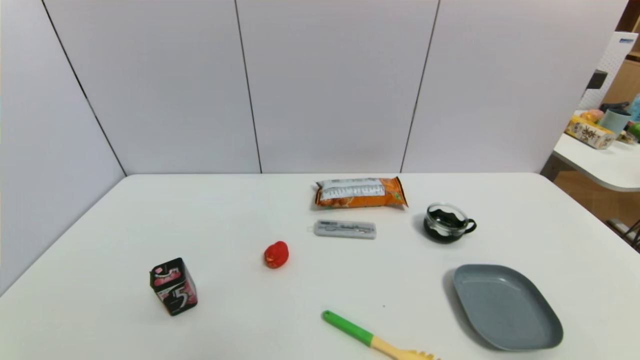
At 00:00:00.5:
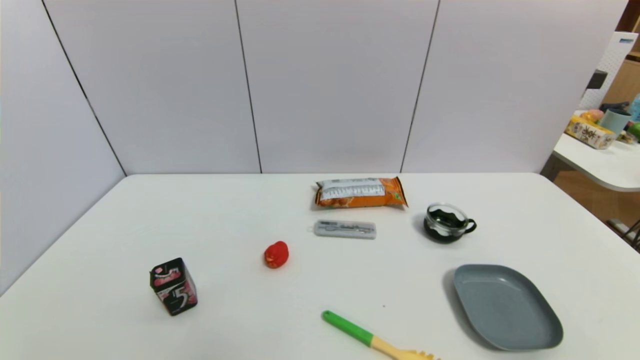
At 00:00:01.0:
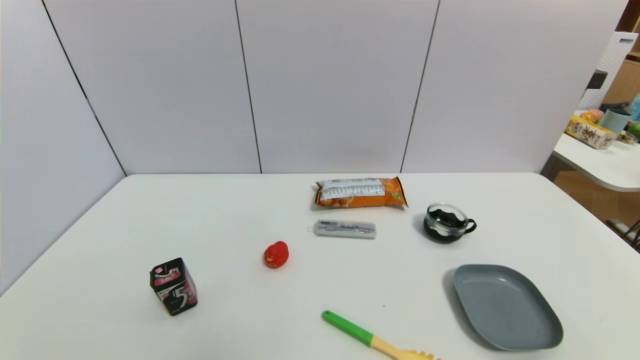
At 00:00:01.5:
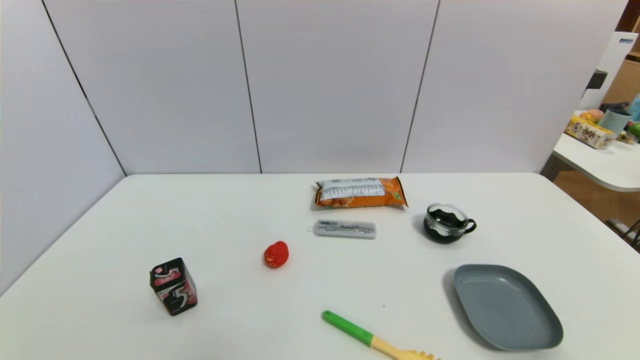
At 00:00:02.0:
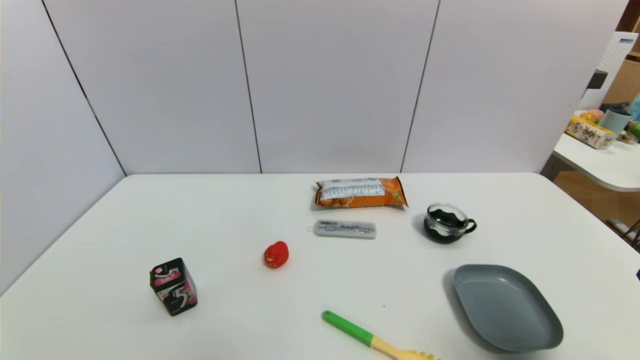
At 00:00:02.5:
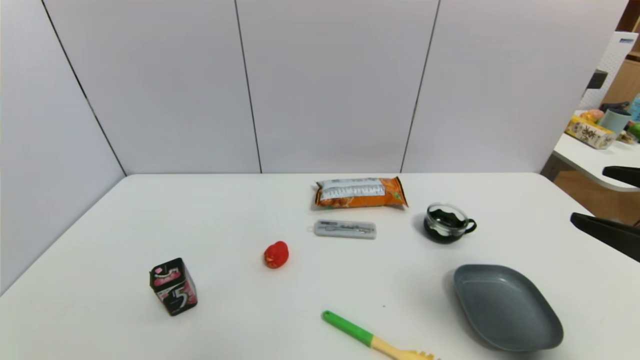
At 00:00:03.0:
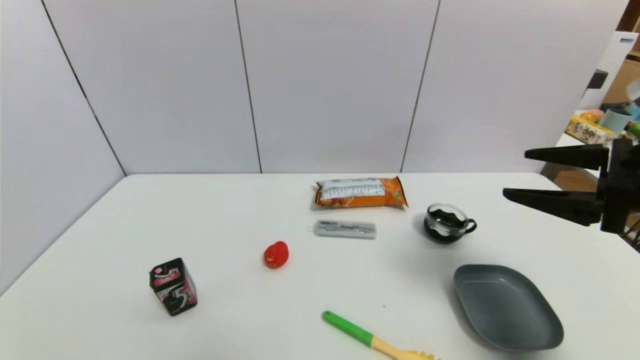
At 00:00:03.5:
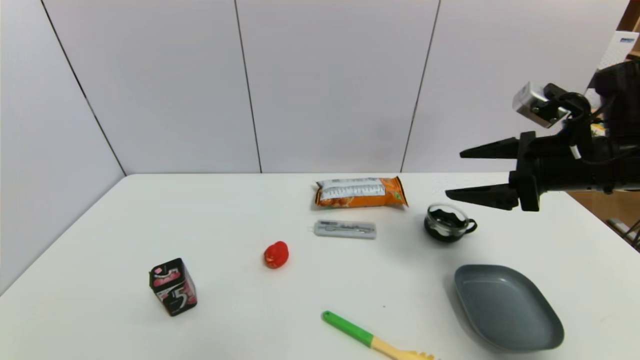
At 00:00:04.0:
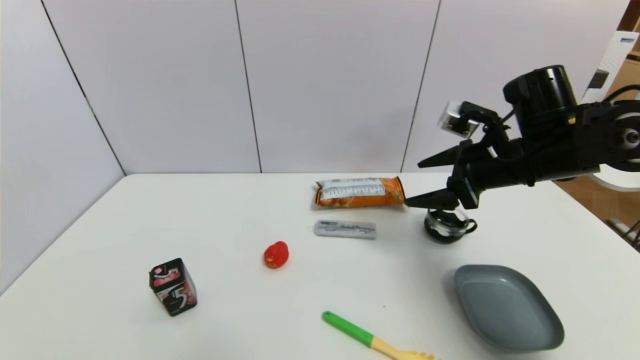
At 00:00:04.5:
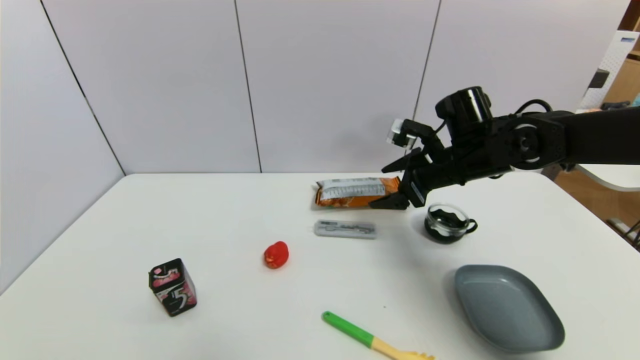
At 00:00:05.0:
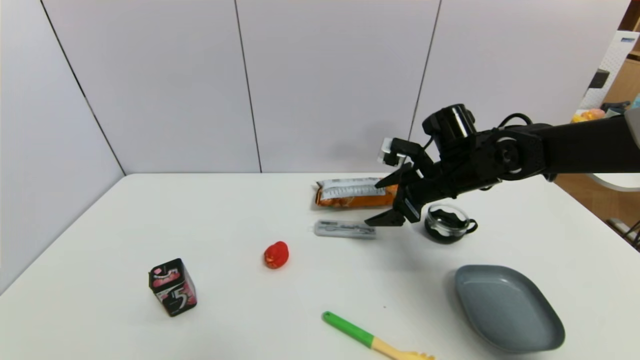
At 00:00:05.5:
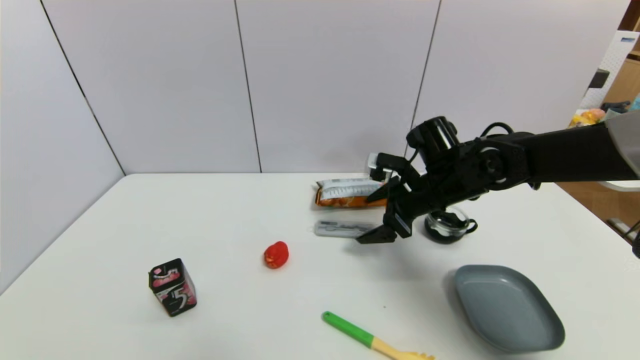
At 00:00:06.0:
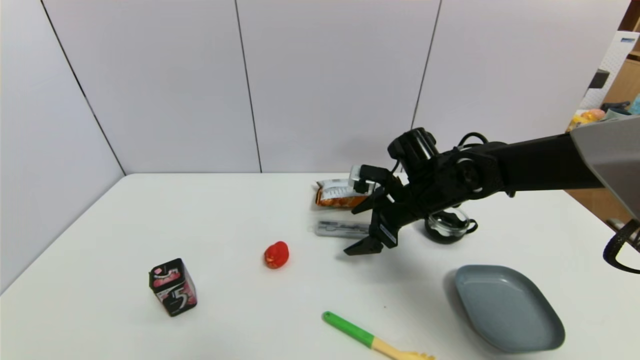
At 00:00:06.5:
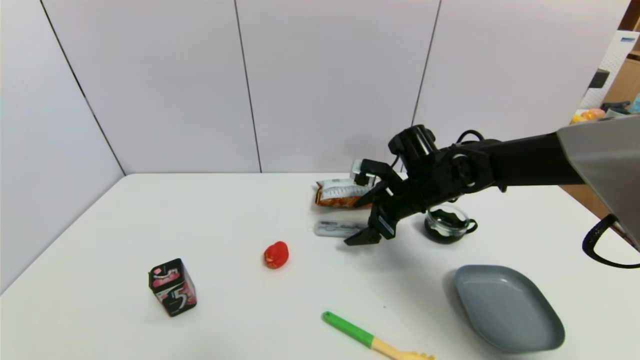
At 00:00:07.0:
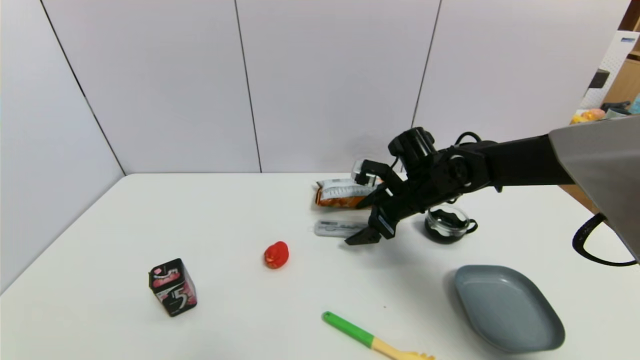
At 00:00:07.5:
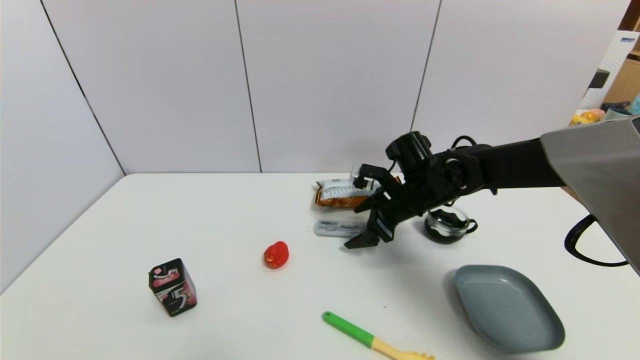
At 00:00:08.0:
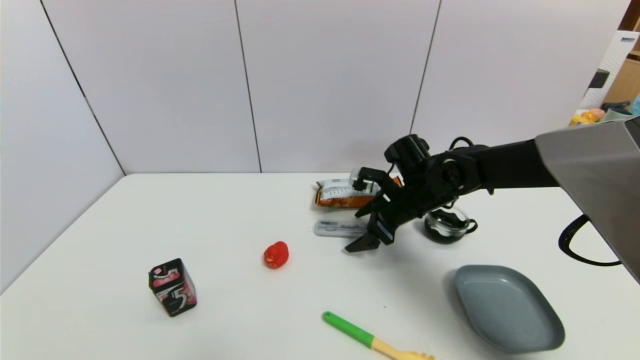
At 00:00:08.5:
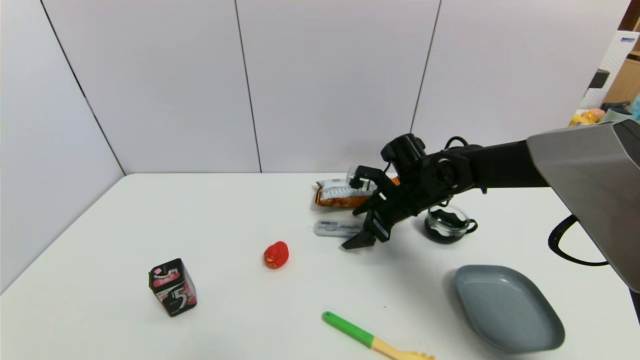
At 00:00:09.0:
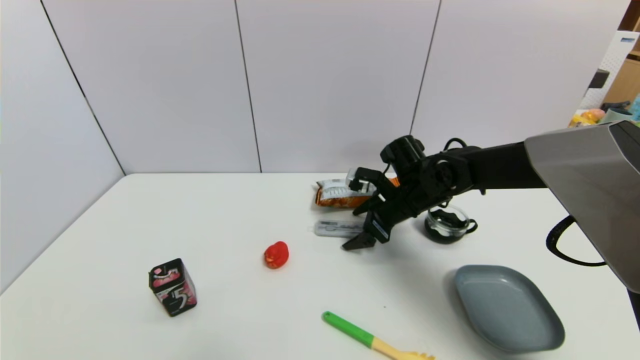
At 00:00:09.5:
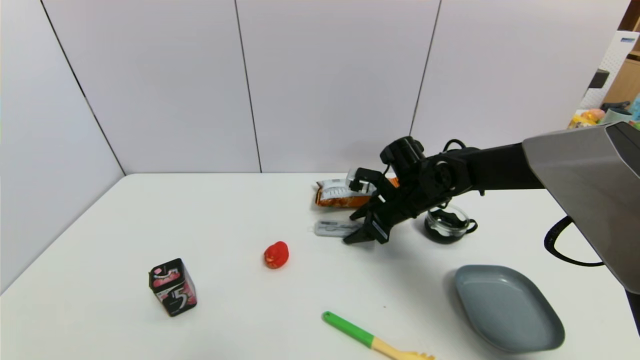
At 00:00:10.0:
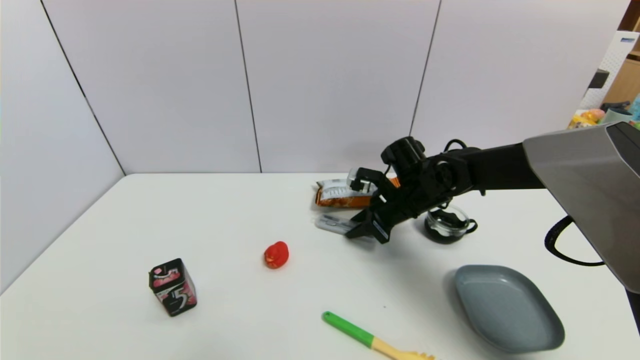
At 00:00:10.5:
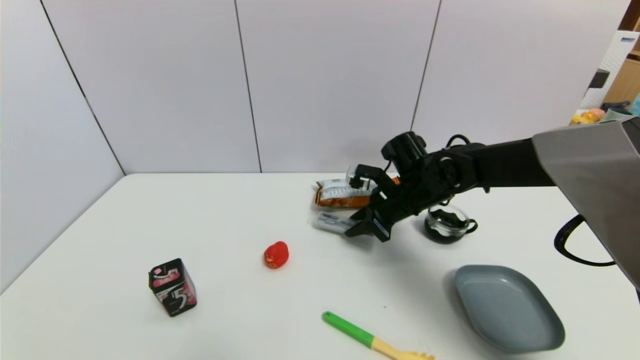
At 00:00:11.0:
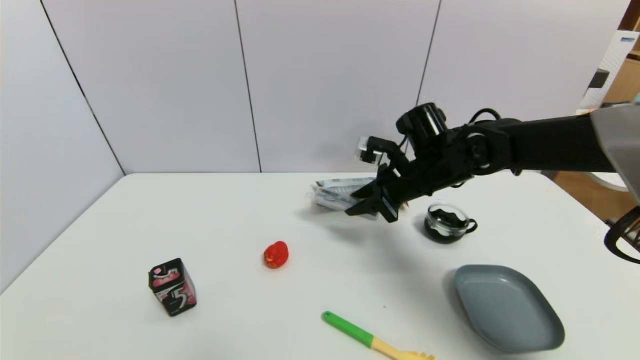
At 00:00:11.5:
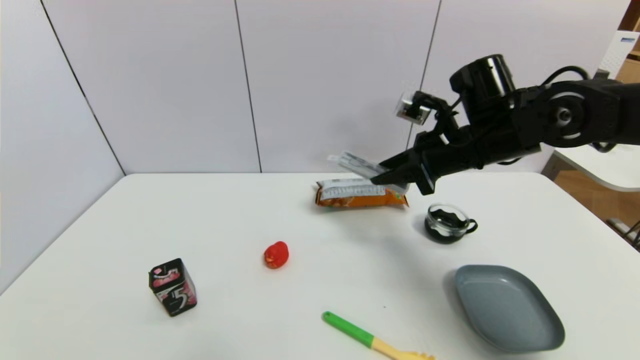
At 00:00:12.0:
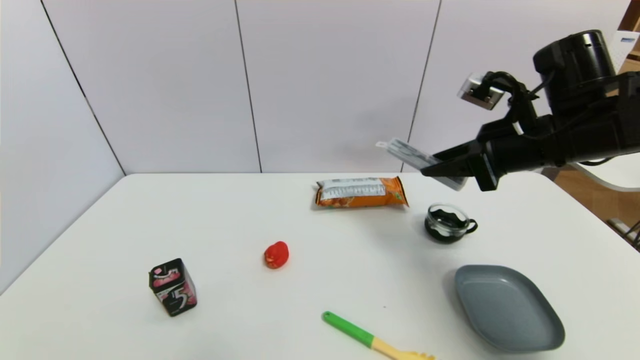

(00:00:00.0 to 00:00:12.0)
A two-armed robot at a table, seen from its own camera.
Task of the whole recording: use a gripper to pick the target object and place on the dish.
Step, 00:00:00.0 - 00:00:10.0: Grasp the compasses with the right gripper.
00:00:00.0 - 00:00:02.0: The right gripper travels upward and forward by approximately 15 cm.
00:00:02.0 - 00:00:04.0: The right gripper is displaced forward by approximately 25 cm.
00:00:04.0 - 00:00:06.0: The right gripper travels to the left and downward by roughly 15 cm.
00:00:06.0 - 00:00:08.0: The grippers stay close to where they were, moving slightly.
00:00:08.0 - 00:00:10.0: The right gripper closes up.
00:00:10.0 - 00:00:12.0: The right gripper travels upward, to the right and backward by approximately 20 cm.

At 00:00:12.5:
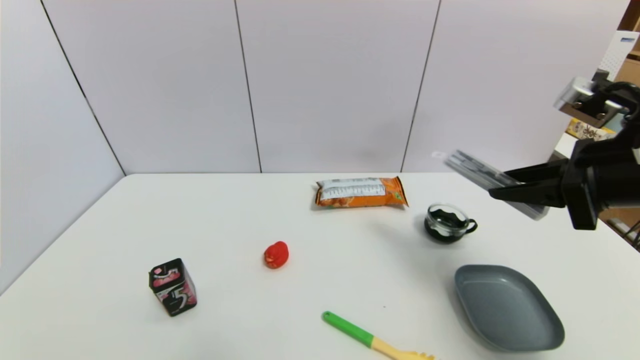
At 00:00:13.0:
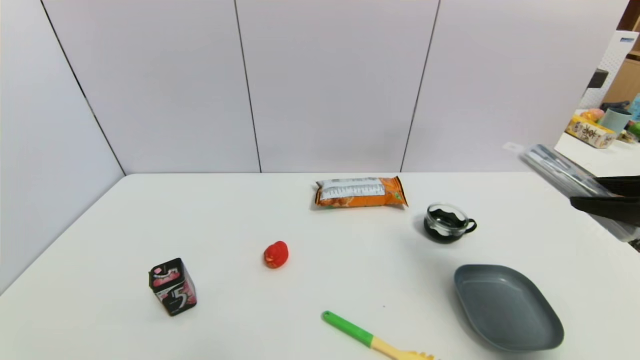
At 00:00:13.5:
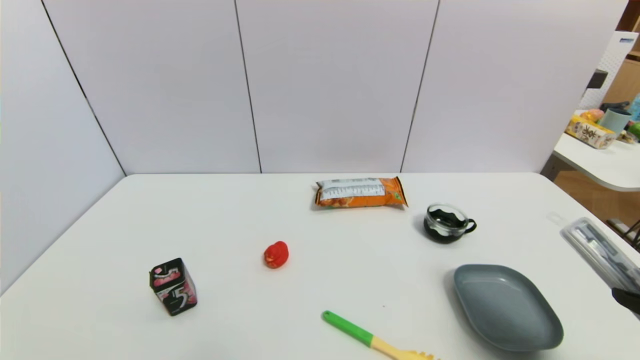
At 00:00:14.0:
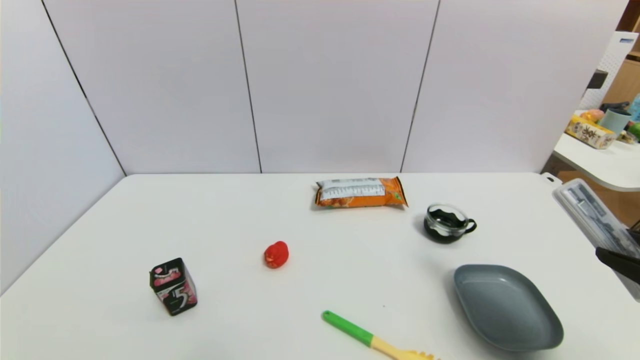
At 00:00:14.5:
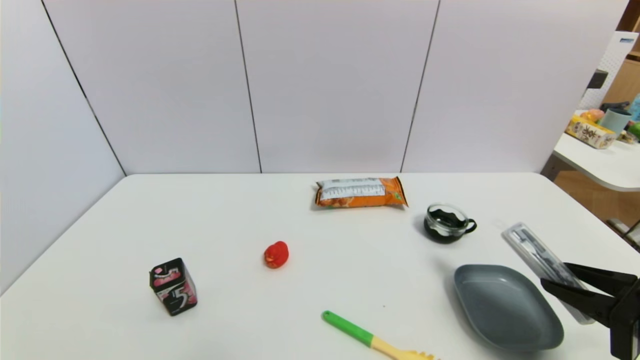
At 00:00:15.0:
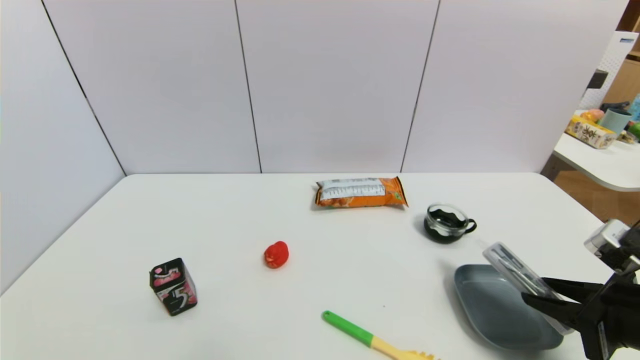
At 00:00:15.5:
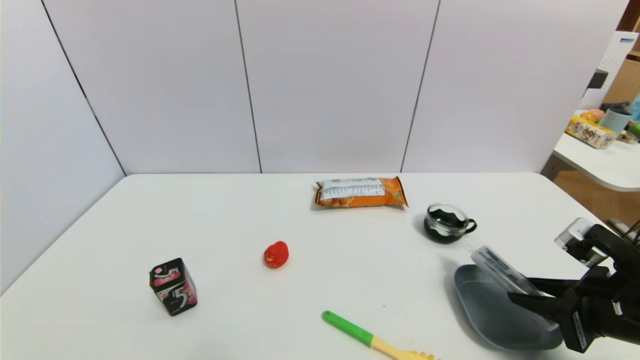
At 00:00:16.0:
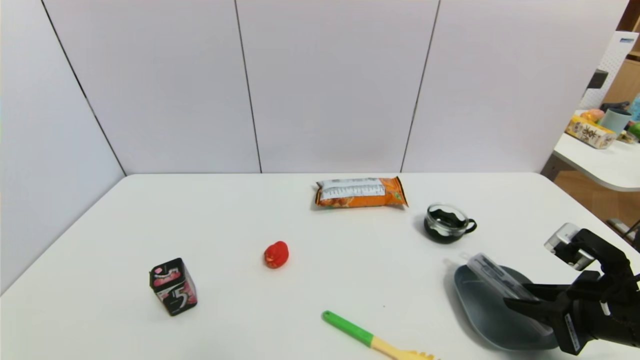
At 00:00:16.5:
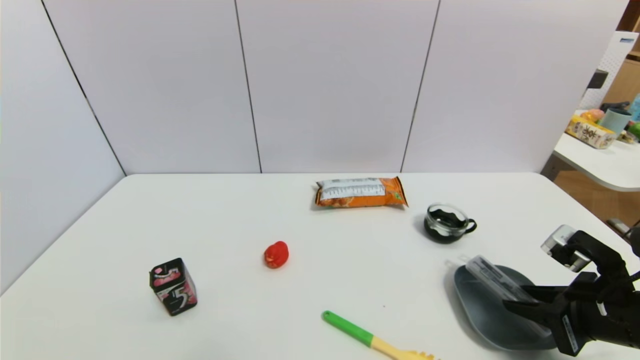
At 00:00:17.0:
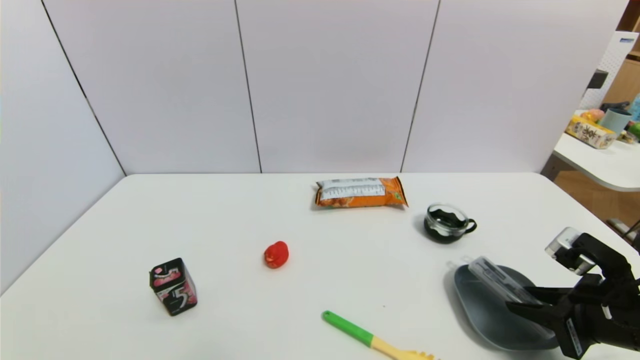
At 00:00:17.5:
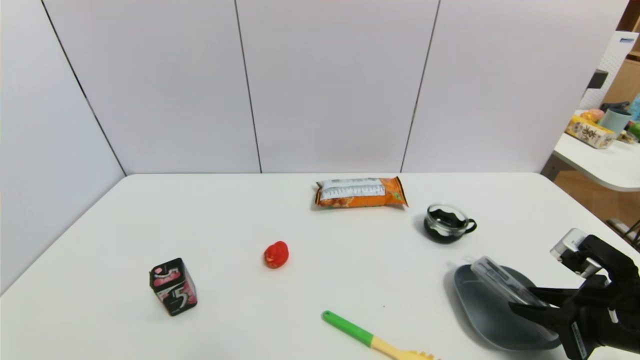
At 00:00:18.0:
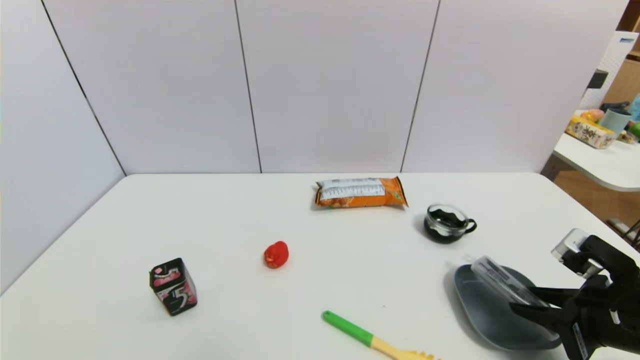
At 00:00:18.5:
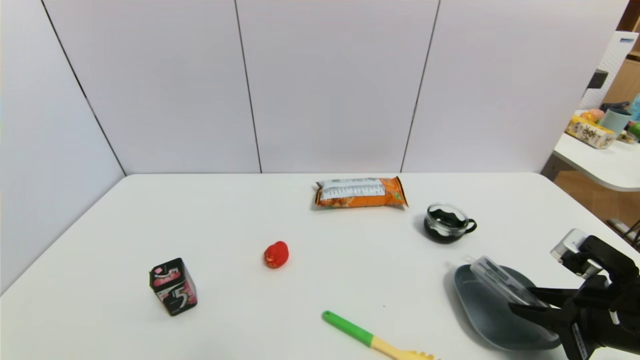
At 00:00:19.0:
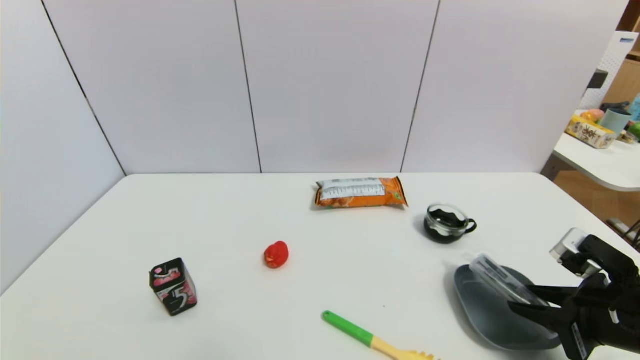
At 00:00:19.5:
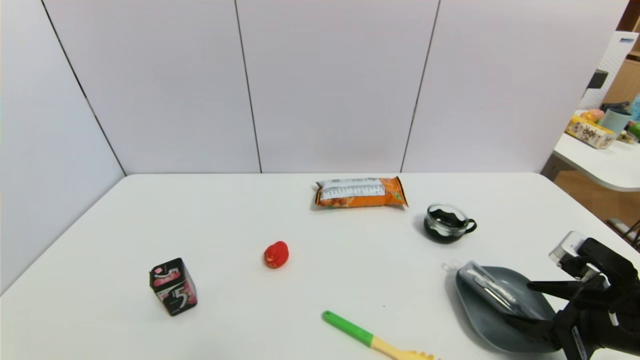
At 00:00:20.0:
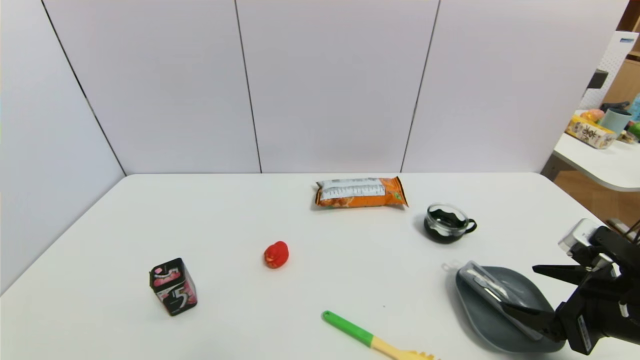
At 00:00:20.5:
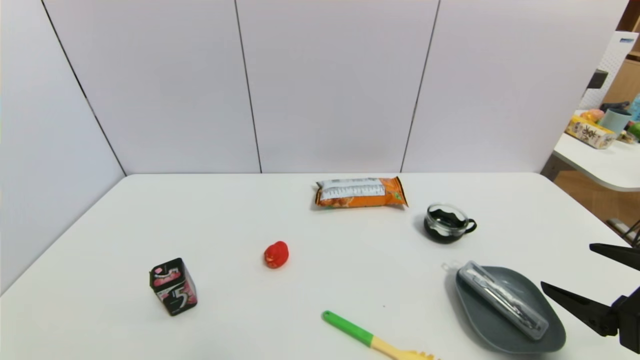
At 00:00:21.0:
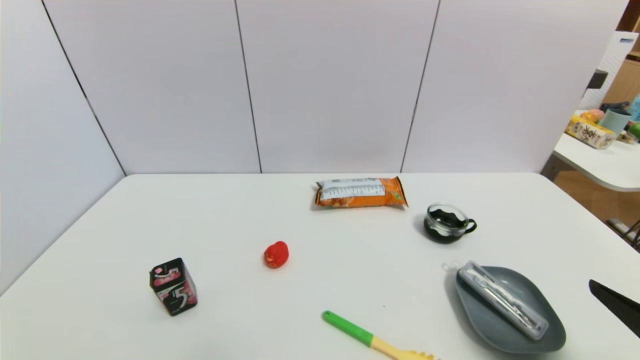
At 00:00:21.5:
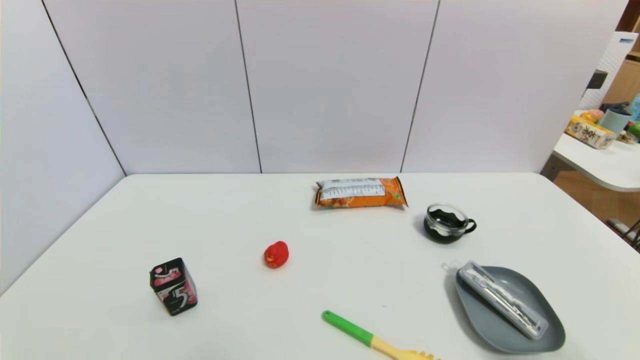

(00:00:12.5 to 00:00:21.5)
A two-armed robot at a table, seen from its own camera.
Task of the whole recording: use a gripper to pick the target object and place on the dish.
Step, 00:00:12.5 - 00:00:20.0: Place the compasses on the dish with the right gripper.
00:00:12.5 - 00:00:14.5: The right gripper is displaced downward and backward by roughly 15 cm.
00:00:14.5 - 00:00:17.0: The right gripper shifts by approximately 5 cm.
00:00:17.0 - 00:00:19.5: The right gripper opens up.
00:00:19.5 - 00:00:21.5: The right gripper is displaced backward by some 15 cm.
